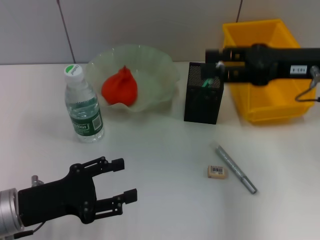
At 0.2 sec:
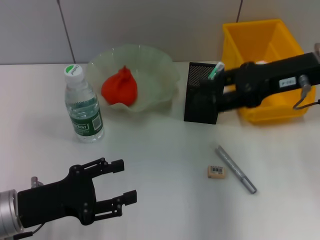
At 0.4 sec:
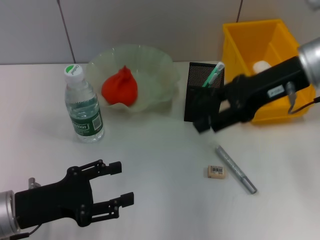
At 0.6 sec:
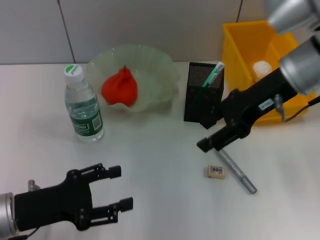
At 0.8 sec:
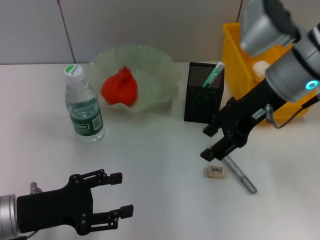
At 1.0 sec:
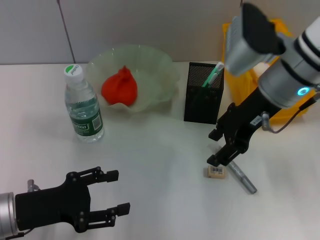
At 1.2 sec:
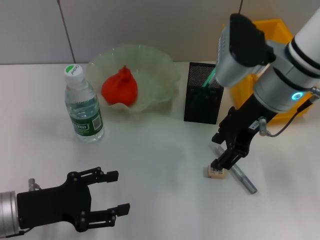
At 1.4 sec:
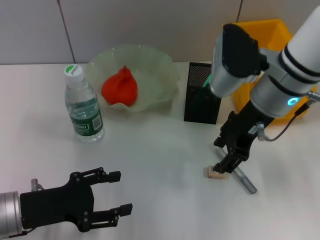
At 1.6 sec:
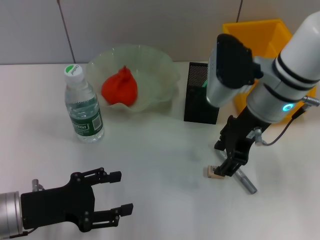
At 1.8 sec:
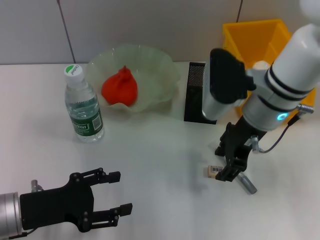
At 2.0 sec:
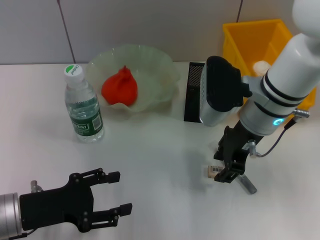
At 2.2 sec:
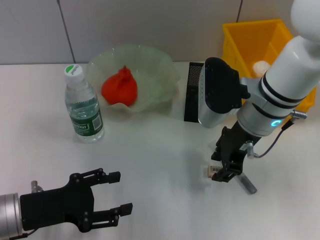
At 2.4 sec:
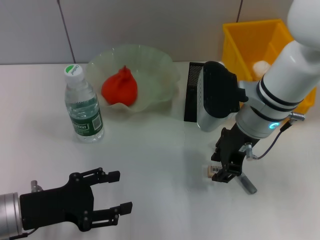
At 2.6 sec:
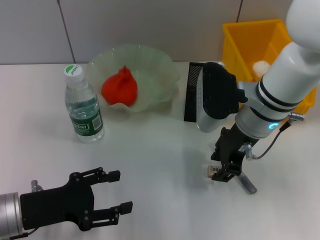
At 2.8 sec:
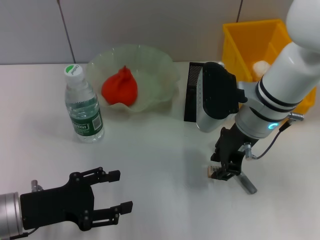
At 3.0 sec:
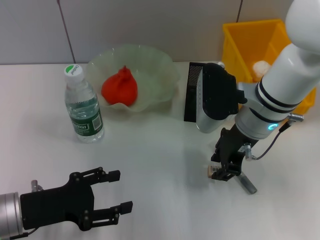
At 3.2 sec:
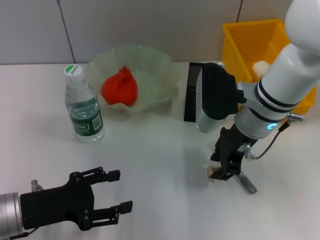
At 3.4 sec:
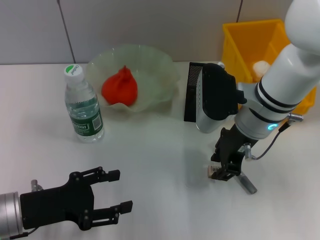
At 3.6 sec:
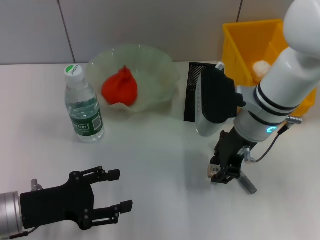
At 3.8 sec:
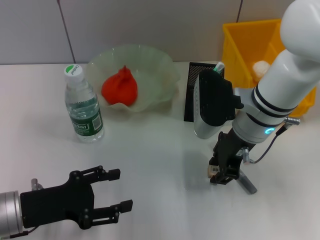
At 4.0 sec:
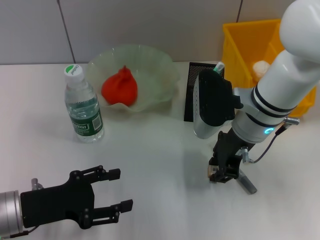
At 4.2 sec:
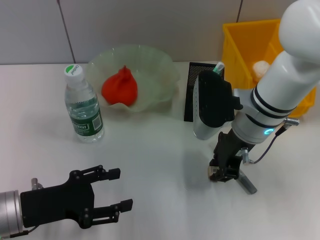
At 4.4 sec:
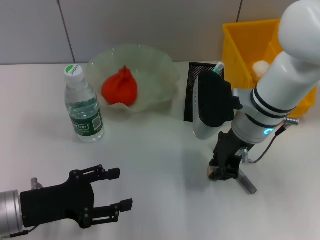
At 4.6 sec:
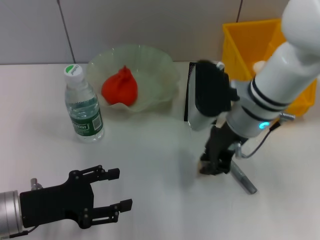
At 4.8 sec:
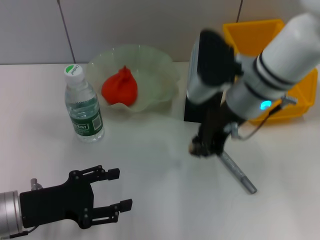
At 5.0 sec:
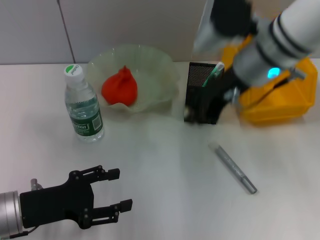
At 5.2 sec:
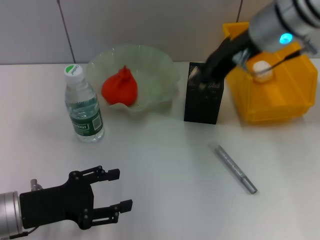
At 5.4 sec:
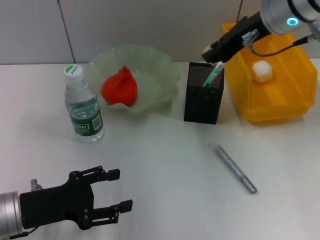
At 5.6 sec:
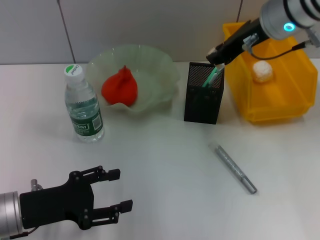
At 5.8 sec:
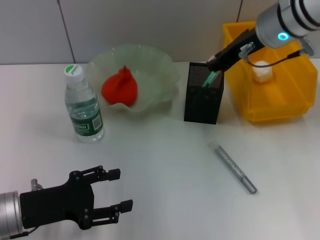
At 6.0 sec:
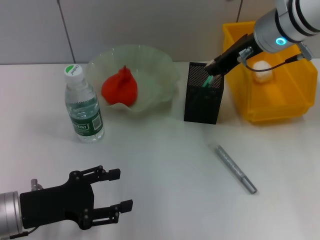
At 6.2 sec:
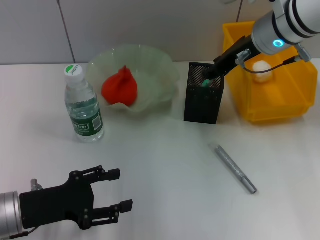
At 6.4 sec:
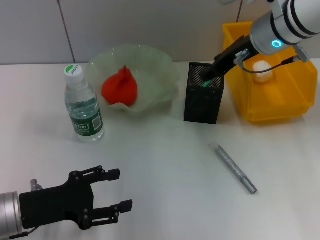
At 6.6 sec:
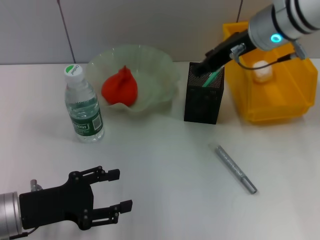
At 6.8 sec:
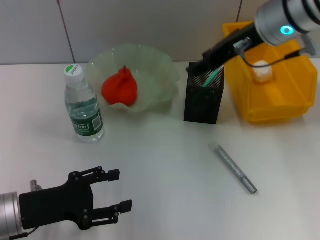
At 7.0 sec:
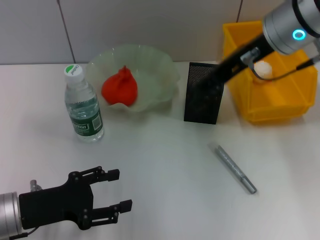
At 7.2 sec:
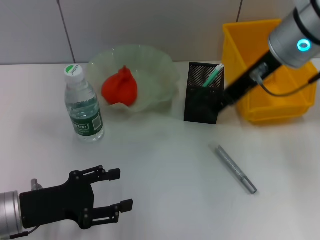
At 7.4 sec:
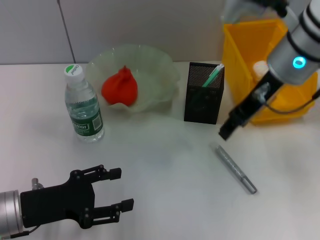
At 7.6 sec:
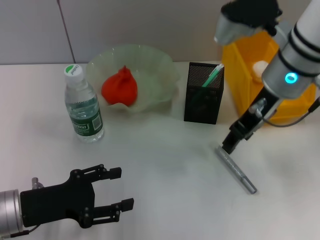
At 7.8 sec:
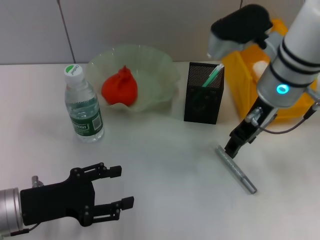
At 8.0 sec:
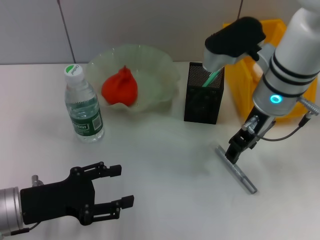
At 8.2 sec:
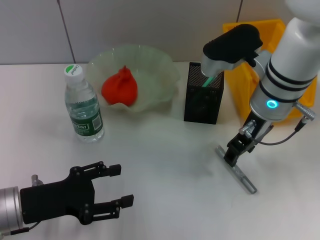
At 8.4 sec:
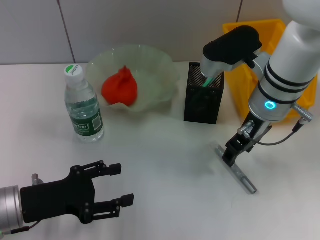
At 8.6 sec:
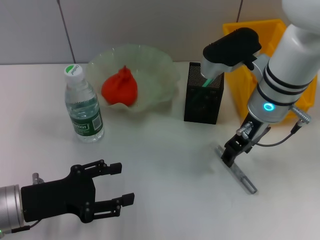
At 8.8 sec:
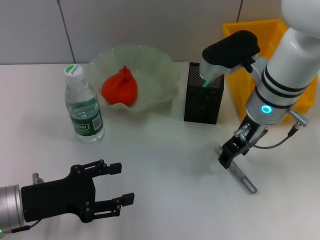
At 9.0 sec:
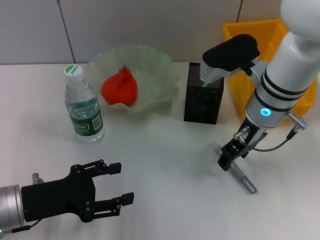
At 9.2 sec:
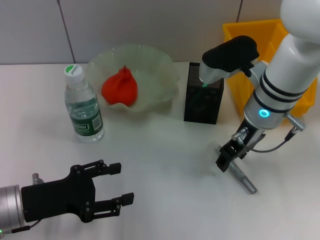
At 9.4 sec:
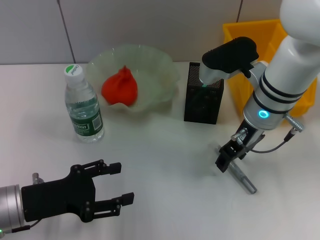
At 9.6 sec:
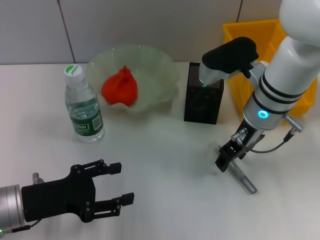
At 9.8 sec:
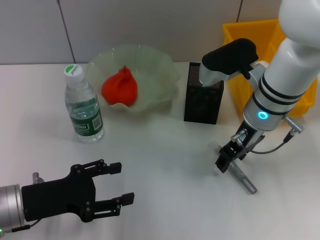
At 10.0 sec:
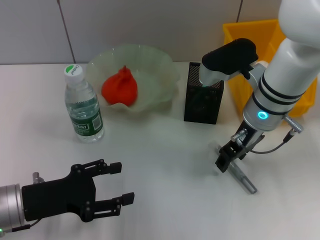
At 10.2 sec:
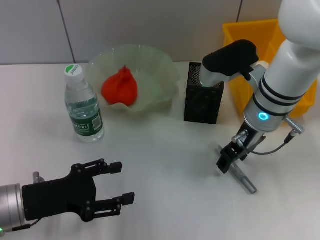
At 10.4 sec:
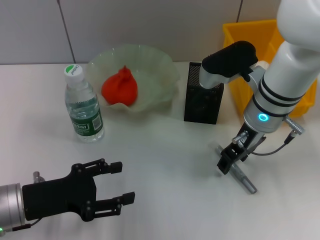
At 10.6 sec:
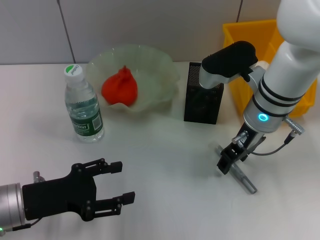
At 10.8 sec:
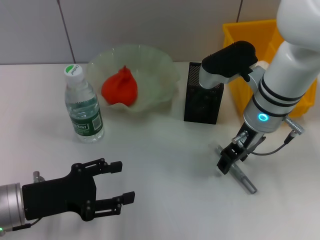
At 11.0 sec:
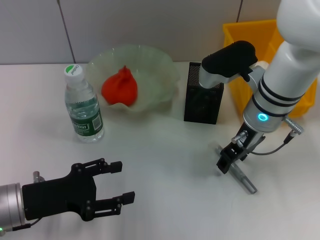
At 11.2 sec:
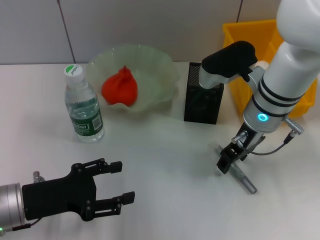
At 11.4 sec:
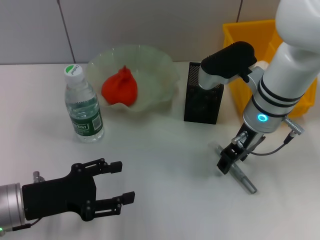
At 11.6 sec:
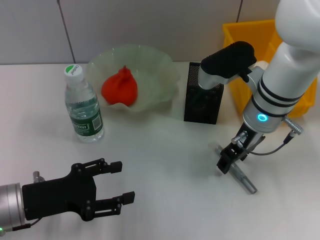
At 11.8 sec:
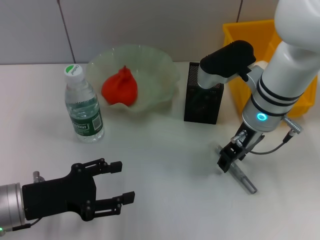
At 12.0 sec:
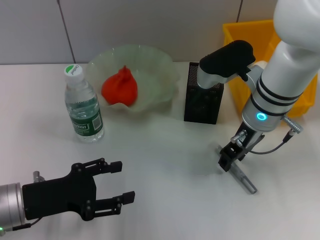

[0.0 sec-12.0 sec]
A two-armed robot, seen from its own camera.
Step, 0.0 sec to 4.2 sec: Grab the eraser with the right hand.
Step, 4.4 sec to 6.4 sec: Put the eraser into the pen holder with the right hand.
0.0 sec to 1.6 sec: The right gripper moves to the left, roughly 10 cm.
1.6 sec to 3.0 sec: The grippers stay close to where they were, moving slightly.
3.0 sec to 4.4 sec: Both grippers stay put.
4.4 sec to 6.0 sec: The right gripper moves upward and forward, some 10 cm.
6.0 sec to 7.6 sec: The right gripper heads backward, covering some 5 cm, and opens.
7.6 sec to 9.0 sec: The right gripper goes some 5 cm downward.
9.0 sec to 12.0 sec: Neither gripper changes place.

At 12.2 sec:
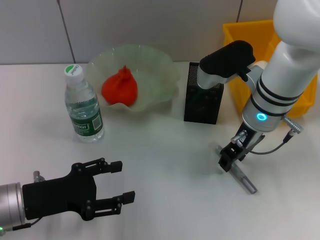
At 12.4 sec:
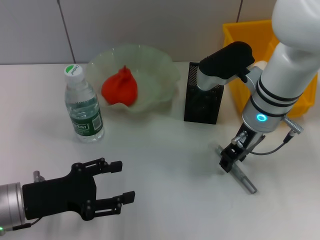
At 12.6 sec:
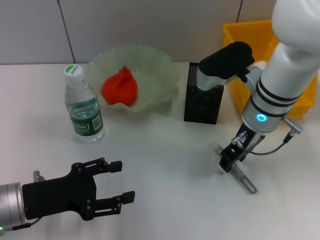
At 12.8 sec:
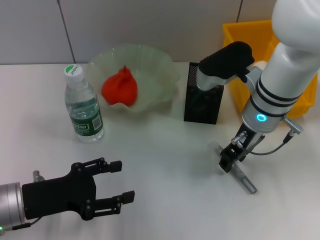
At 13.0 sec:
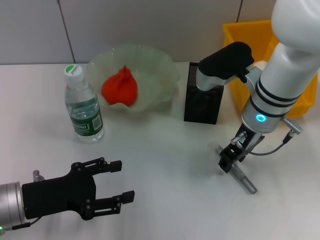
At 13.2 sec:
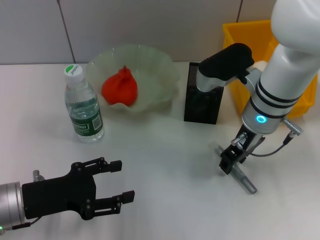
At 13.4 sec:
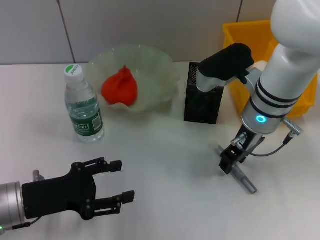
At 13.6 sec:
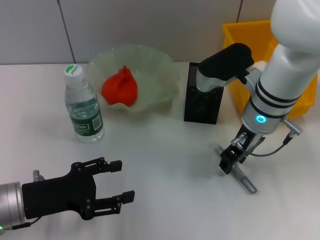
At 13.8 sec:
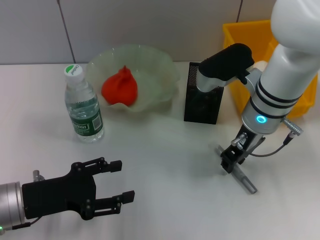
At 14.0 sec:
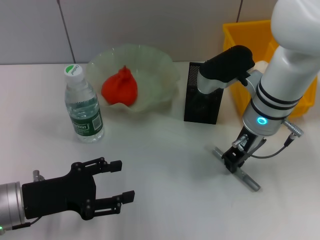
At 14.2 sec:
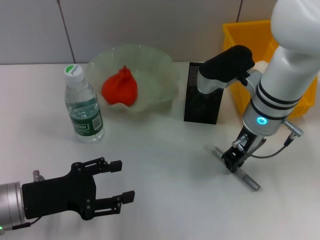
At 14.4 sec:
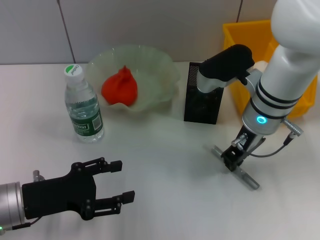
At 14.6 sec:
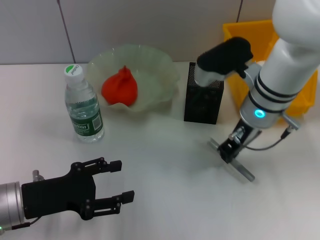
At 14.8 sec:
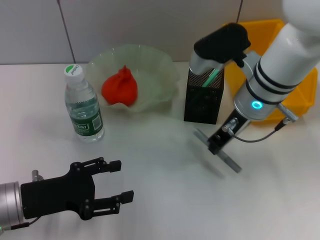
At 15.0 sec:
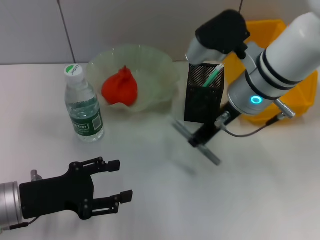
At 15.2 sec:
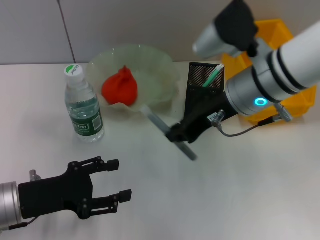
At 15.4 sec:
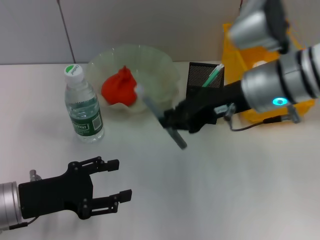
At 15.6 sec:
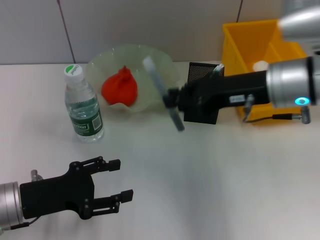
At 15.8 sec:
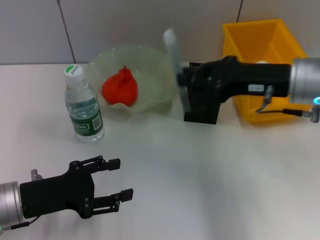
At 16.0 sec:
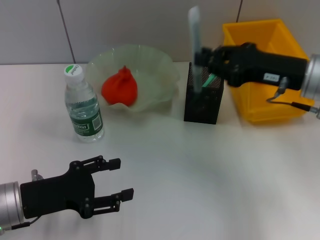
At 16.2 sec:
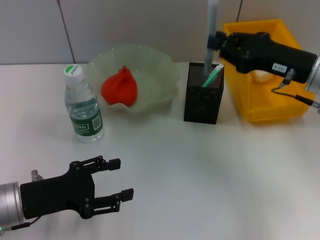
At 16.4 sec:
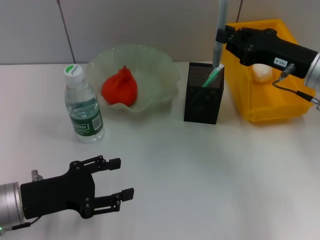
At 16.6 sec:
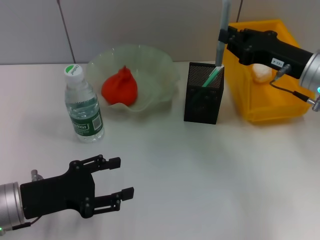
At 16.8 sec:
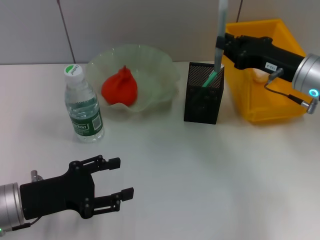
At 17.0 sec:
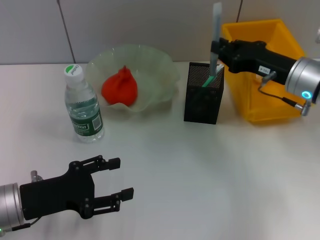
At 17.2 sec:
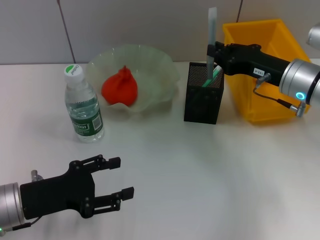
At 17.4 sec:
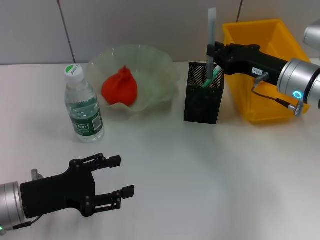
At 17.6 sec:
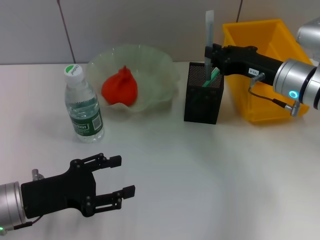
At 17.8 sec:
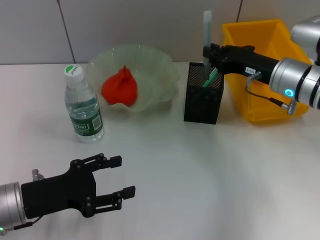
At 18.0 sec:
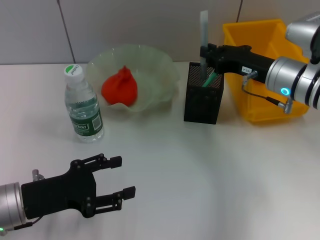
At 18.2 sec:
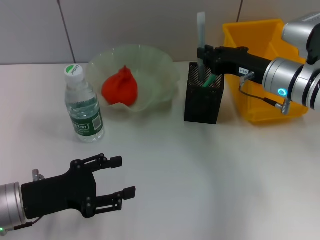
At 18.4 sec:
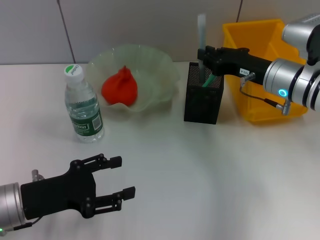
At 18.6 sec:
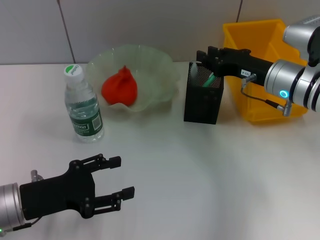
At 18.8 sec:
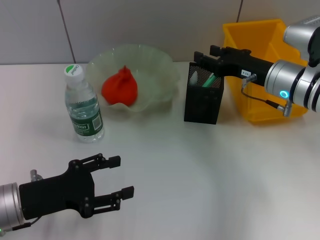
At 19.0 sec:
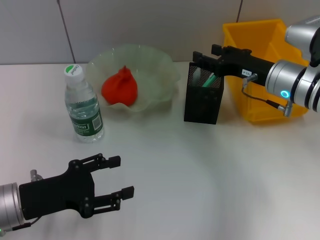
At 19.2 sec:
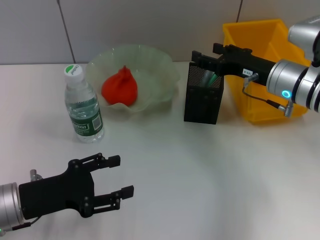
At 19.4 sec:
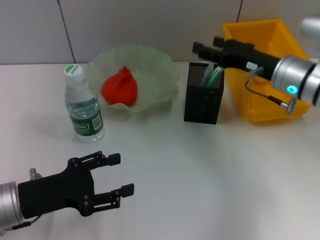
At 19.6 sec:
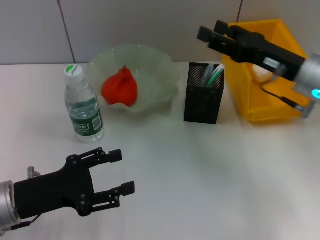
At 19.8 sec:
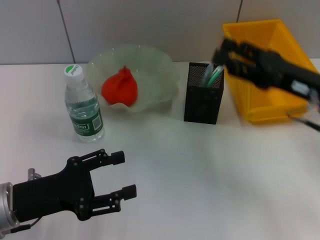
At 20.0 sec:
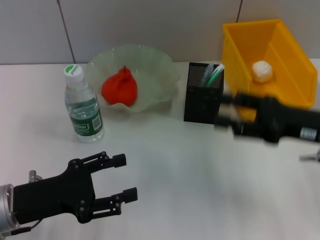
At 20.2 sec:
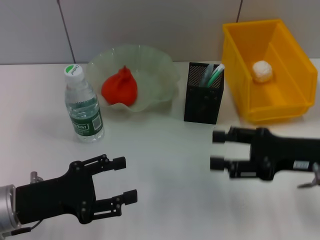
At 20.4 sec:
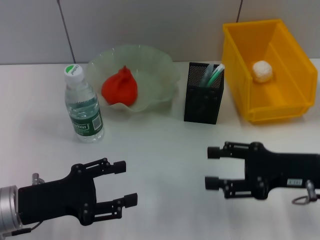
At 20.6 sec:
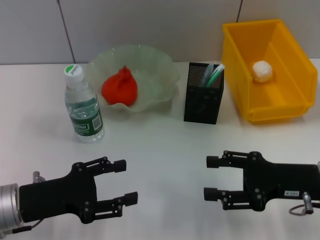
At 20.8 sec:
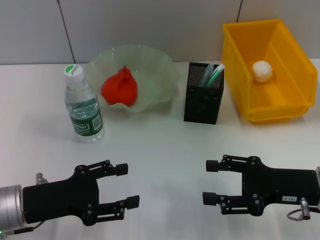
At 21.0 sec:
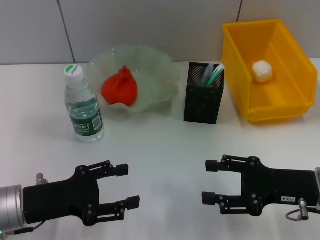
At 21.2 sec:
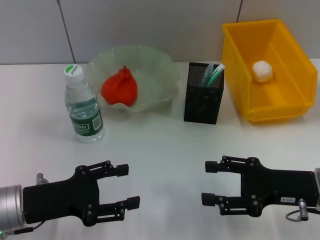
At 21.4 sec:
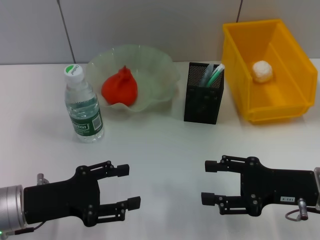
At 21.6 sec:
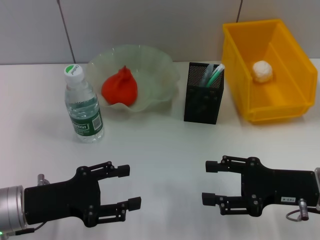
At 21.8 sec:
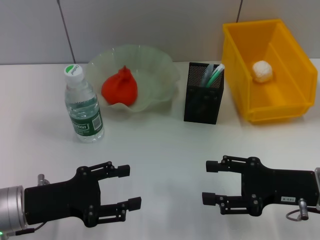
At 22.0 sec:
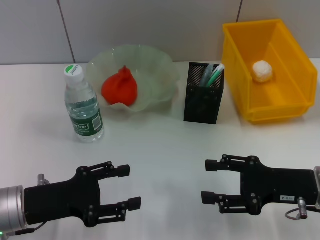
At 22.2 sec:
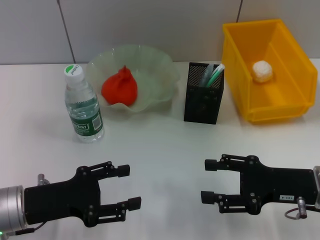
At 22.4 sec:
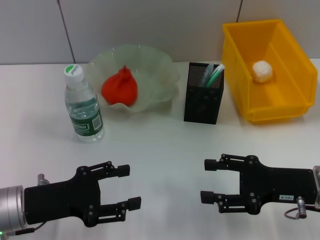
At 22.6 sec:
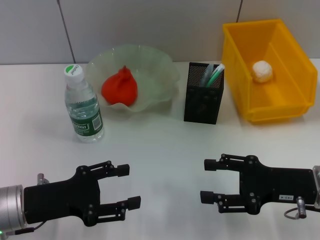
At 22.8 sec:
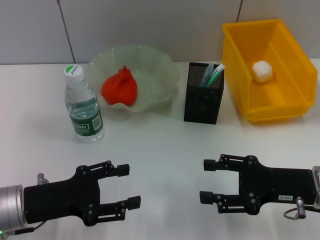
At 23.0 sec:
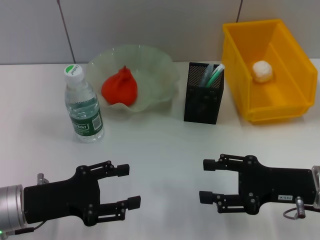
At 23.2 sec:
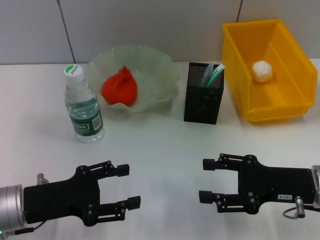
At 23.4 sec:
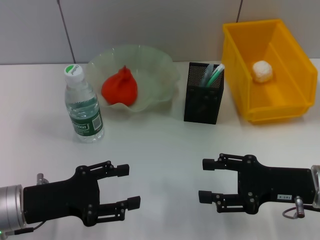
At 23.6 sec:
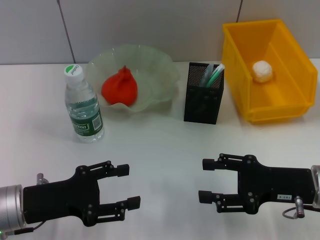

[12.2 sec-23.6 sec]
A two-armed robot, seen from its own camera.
Step, 12.2 sec to 14.2 sec: Grab the gray glue with the right hand.
Step, 14.4 sec to 18.6 sec: Place the gray glue into the pen holder with the right hand.
12.2 sec to 13.6 sec: Neither gripper changes place.
13.6 sec to 15.0 sec: The right gripper closes up.
15.0 sec to 16.4 sec: The right gripper heads to the right, covering approximately 15 cm.
16.4 sec to 17.8 sec: The right gripper shifts by approximately 5 cm.
17.8 sec to 19.4 sec: The right gripper opens up.
19.4 sec to 20.8 sec: The right gripper heads backward, covering some 15 cm.
20.8 sec to 23.6 sec: Neither gripper changes place.
